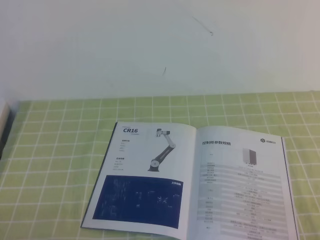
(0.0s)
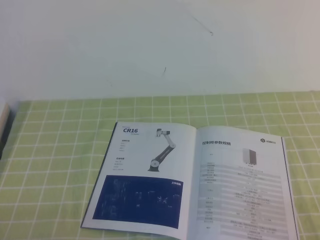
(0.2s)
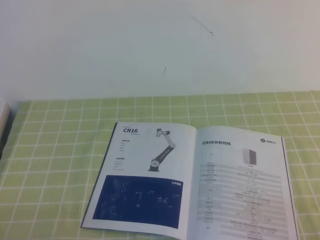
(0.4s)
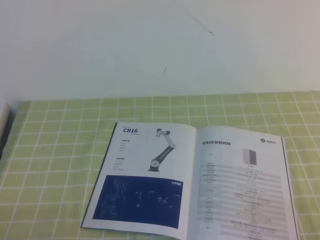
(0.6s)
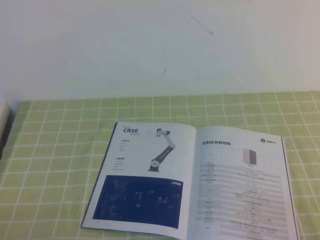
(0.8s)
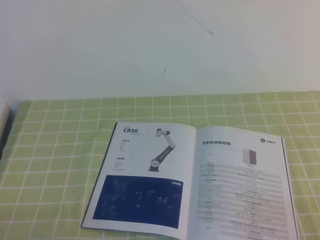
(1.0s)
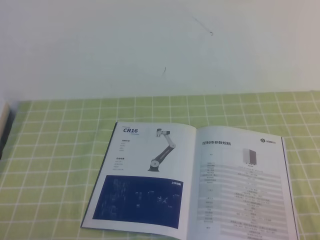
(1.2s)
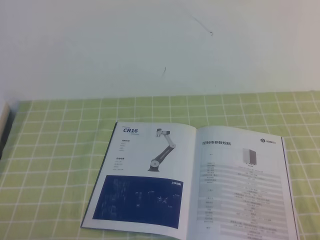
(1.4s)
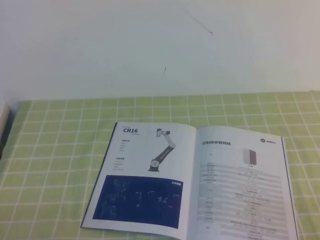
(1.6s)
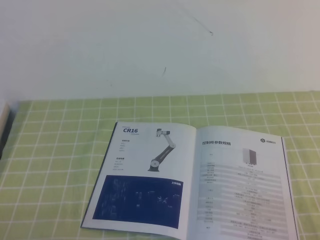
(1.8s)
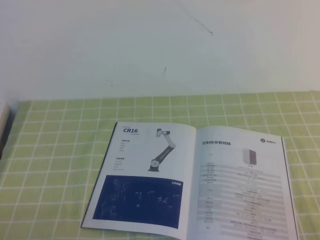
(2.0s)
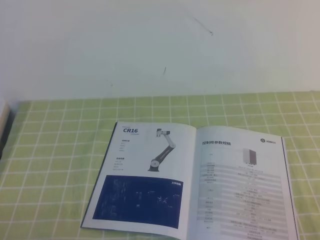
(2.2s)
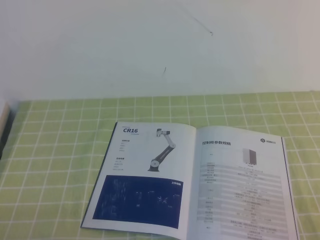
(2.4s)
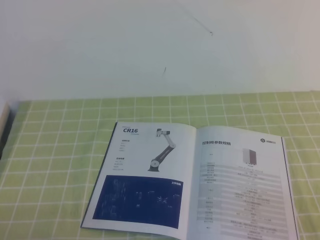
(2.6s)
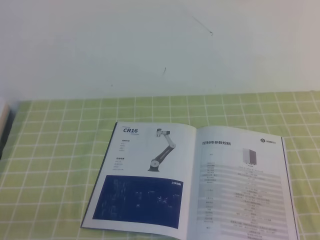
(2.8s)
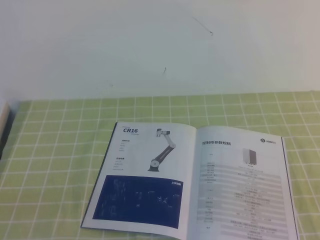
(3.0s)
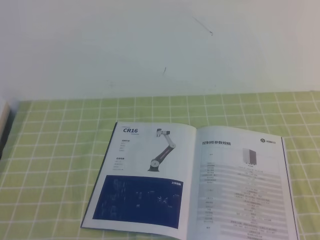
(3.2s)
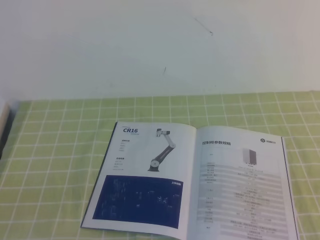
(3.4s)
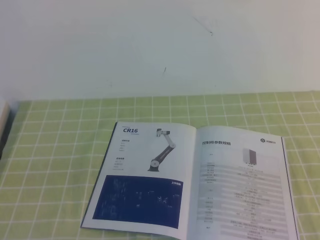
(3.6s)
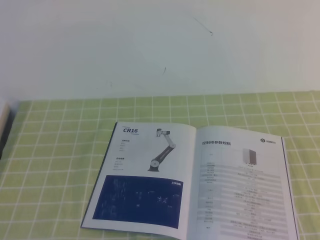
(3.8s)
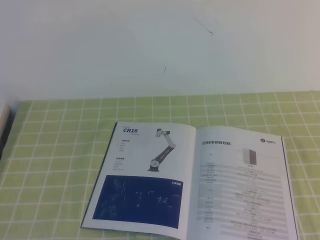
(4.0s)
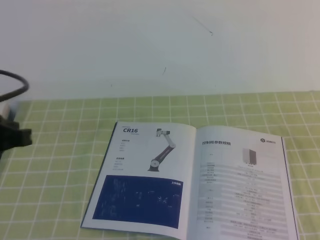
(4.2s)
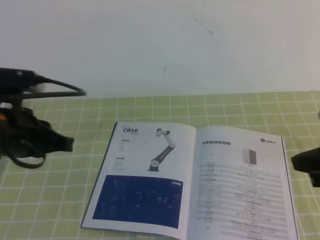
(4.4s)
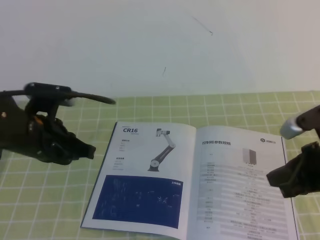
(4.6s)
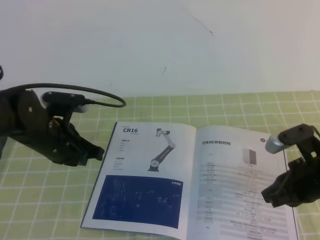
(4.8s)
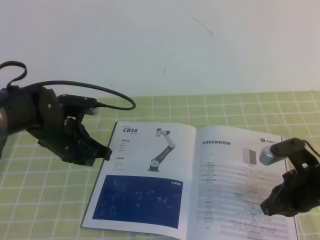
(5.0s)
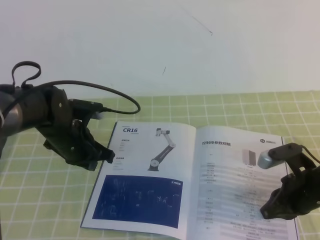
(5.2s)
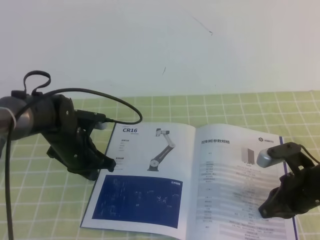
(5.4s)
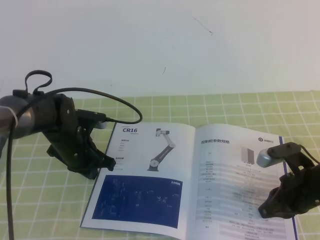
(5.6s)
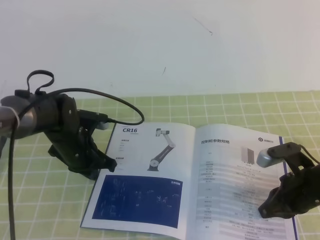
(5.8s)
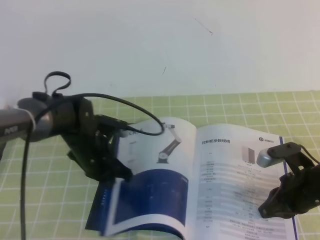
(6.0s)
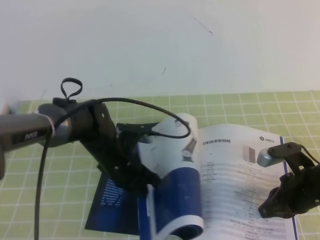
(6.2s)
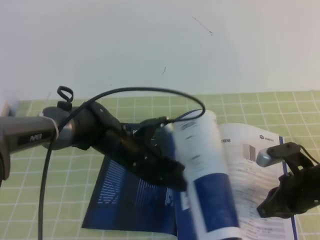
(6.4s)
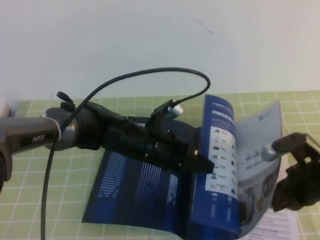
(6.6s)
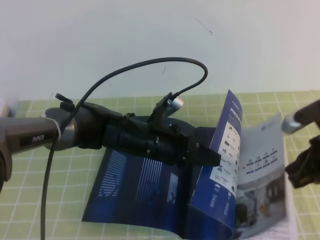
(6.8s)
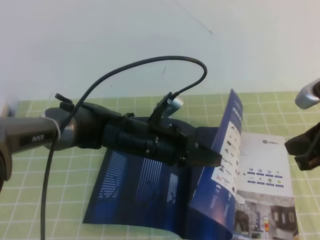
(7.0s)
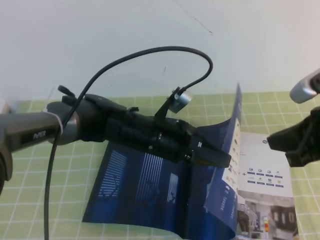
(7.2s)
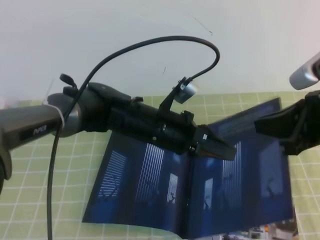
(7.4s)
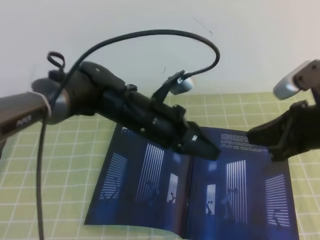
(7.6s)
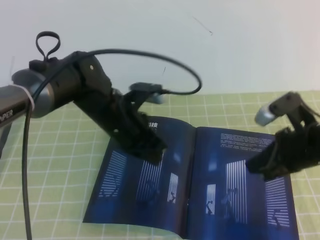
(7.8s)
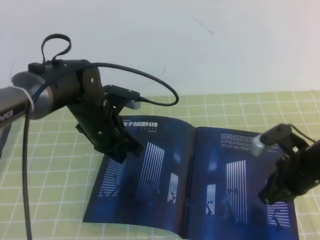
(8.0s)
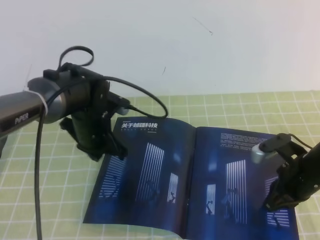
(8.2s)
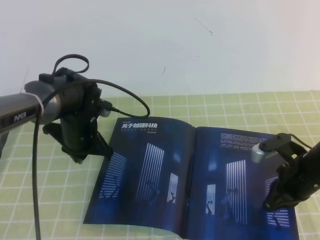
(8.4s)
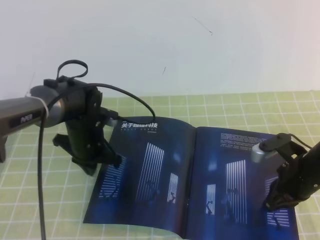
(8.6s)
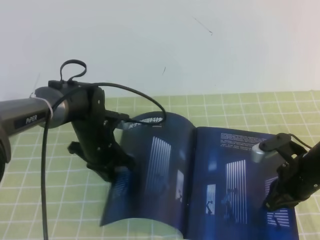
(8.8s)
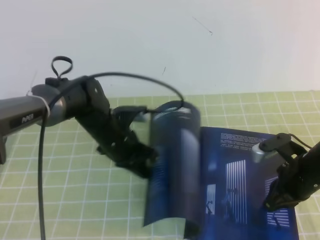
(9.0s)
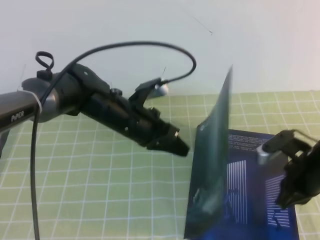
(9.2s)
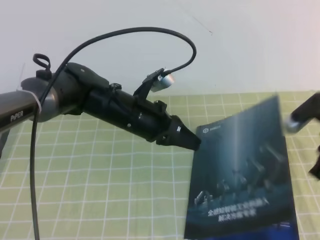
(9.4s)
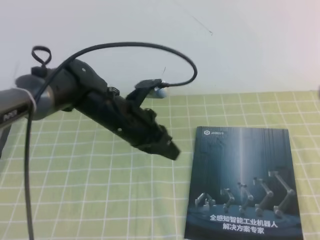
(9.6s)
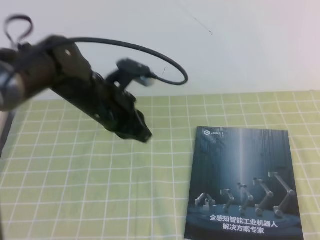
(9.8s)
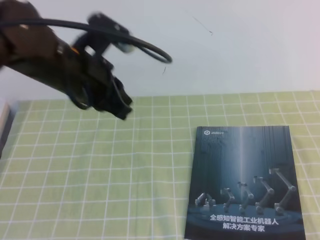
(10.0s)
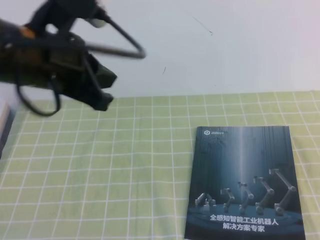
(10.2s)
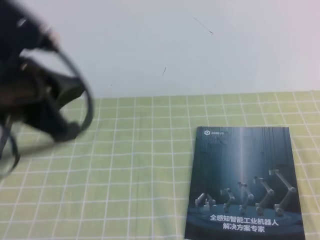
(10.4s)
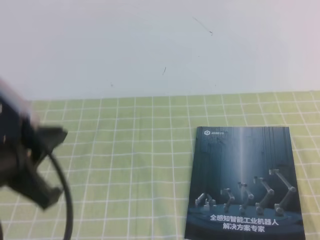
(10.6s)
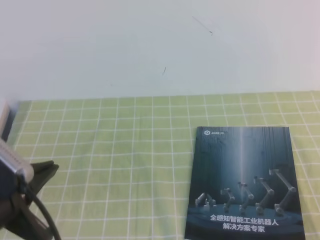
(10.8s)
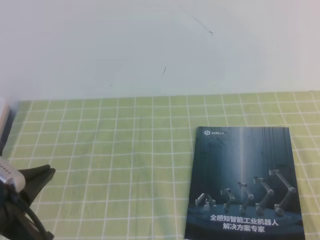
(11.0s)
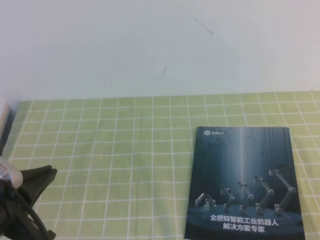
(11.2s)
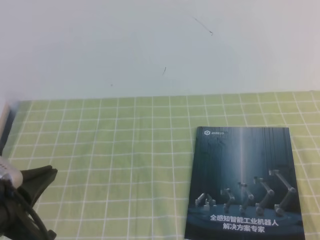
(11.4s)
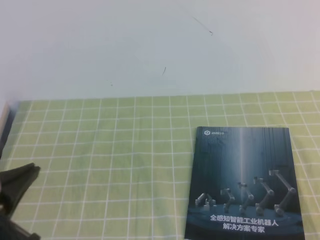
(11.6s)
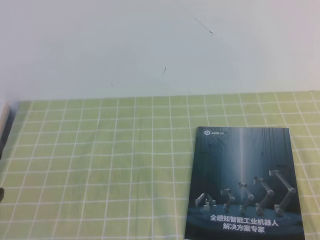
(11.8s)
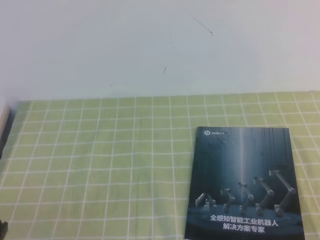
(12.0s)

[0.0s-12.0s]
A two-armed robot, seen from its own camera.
Task of the whole recording: on the green tablecloth, hold the book with one hand and close it with the other.
0.0s to 1.6s: Both grippers stay put.
3.0s to 4.4s: The grippers both shift forward by approximately 20 cm.
4.4s to 6.0s: The left gripper moves downward, forward and to the right, approximately 20 cm; the right gripper shifts about 15 cm downward.
6.0s to 7.6s: The left gripper shifts some 15 cm to the right and upward; the right gripper goes some 15 cm upward.
7.6s to 9.0s: The left gripper is displaced to the left and downward by approximately 10 cm. Meanwhile the right gripper moves downward, about 15 cm.
9.0s to 10.4s: The left gripper is displaced upward and backward by about 25 cm, while the right gripper moves backward and upward, roughly 25 cm.
10.4s to 12.0s: The right gripper changes place by roughly 5 cm, while the left gripper shifts roughly 25 cm downward, backward and to the left.

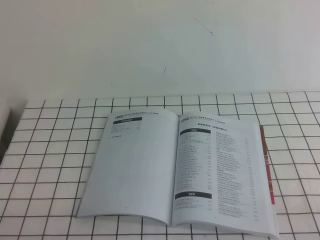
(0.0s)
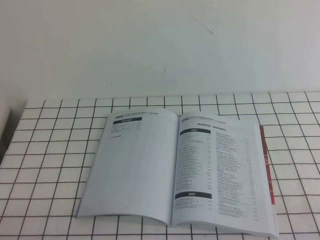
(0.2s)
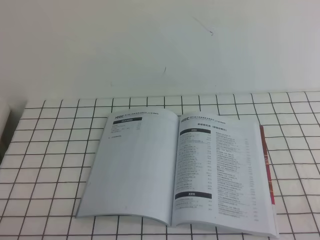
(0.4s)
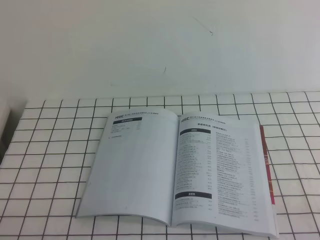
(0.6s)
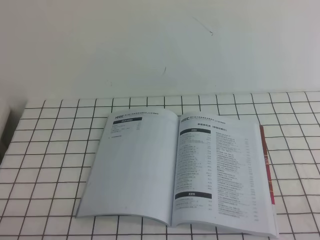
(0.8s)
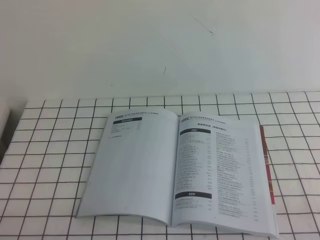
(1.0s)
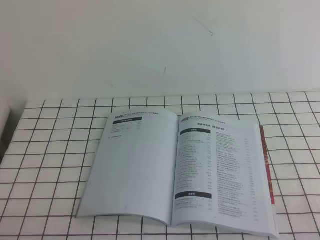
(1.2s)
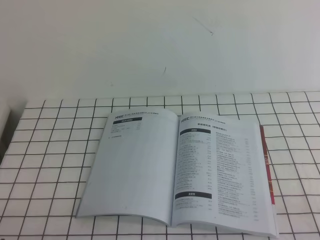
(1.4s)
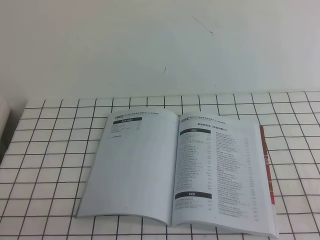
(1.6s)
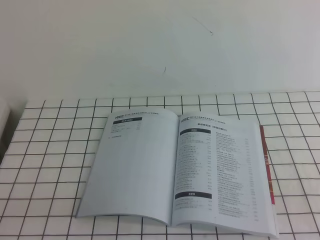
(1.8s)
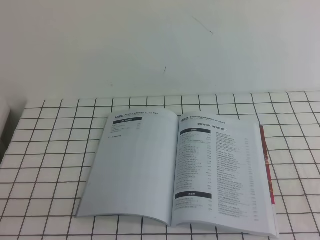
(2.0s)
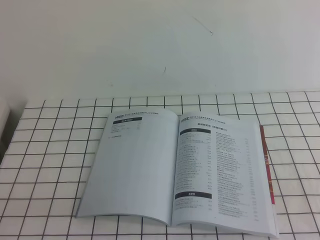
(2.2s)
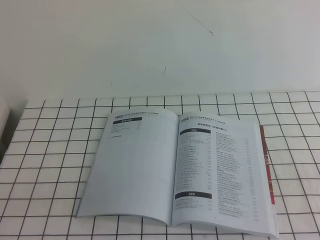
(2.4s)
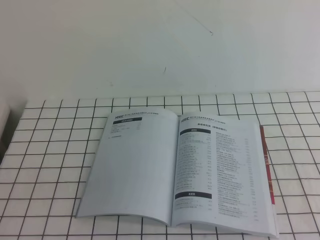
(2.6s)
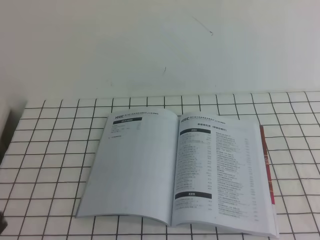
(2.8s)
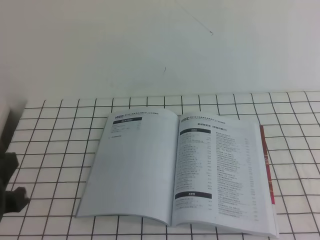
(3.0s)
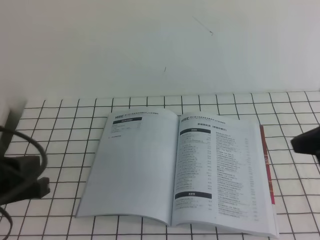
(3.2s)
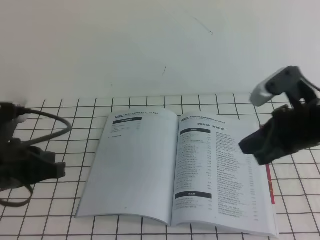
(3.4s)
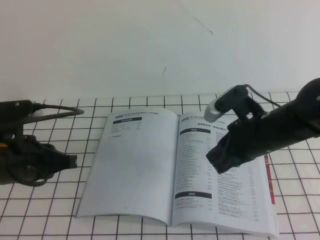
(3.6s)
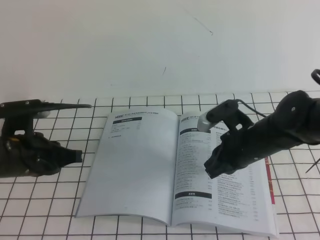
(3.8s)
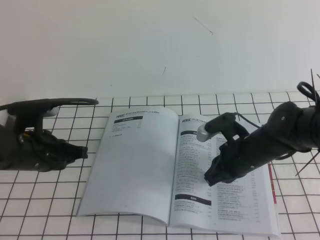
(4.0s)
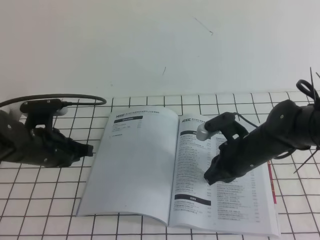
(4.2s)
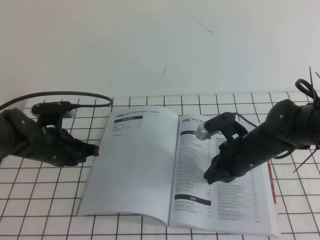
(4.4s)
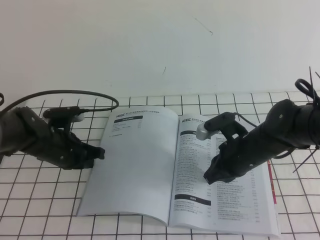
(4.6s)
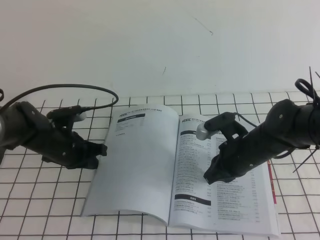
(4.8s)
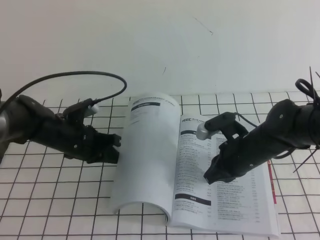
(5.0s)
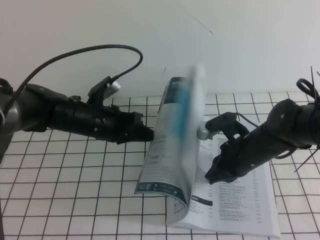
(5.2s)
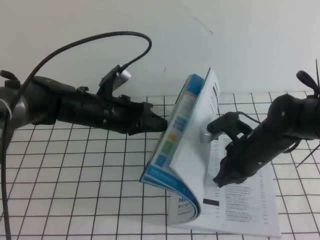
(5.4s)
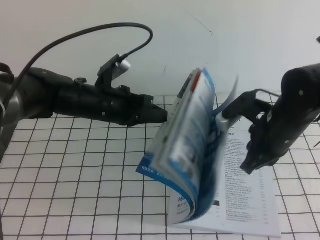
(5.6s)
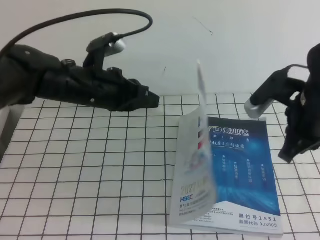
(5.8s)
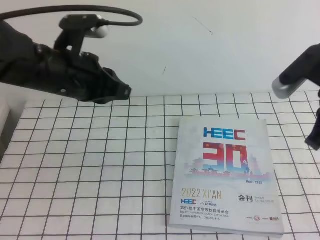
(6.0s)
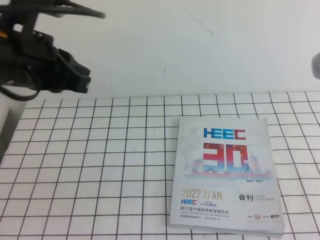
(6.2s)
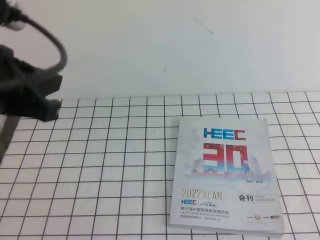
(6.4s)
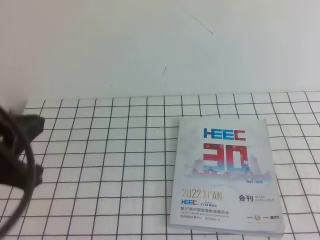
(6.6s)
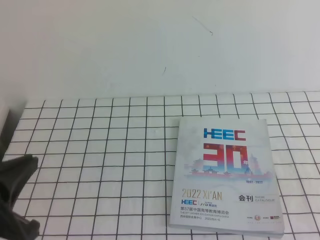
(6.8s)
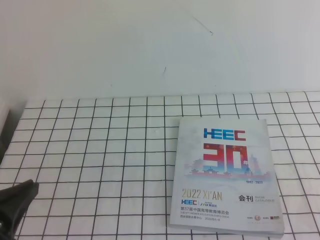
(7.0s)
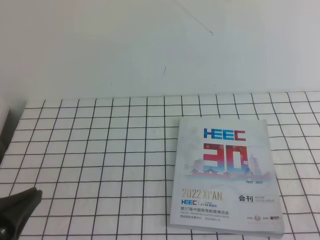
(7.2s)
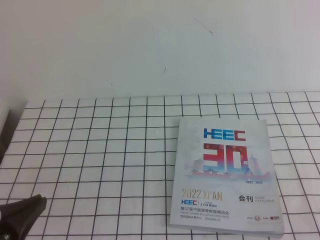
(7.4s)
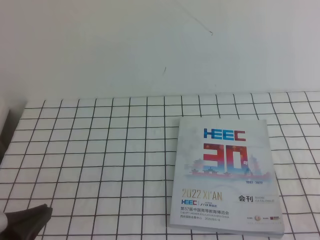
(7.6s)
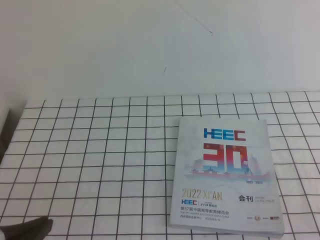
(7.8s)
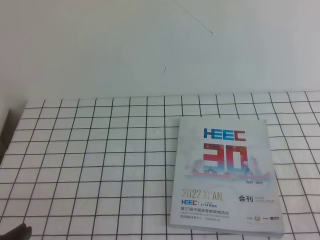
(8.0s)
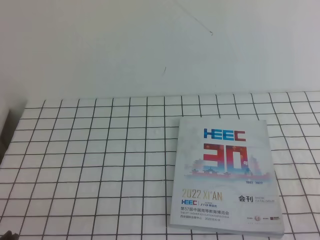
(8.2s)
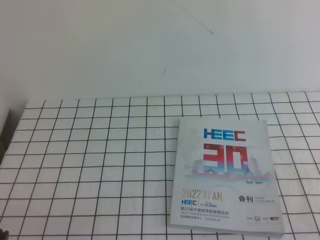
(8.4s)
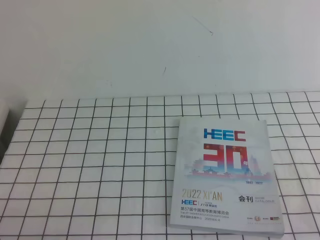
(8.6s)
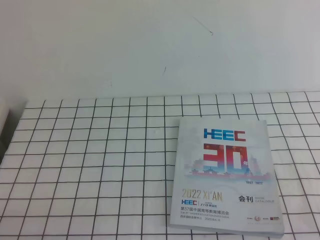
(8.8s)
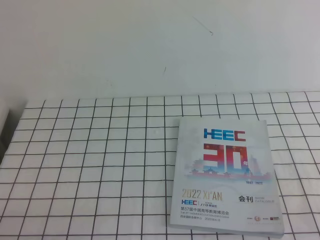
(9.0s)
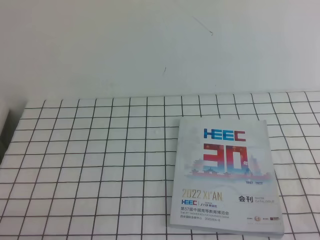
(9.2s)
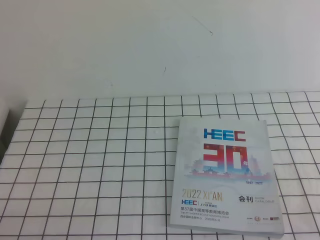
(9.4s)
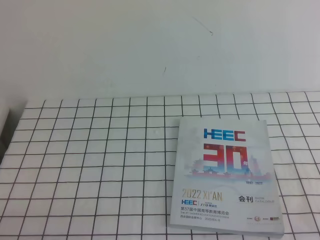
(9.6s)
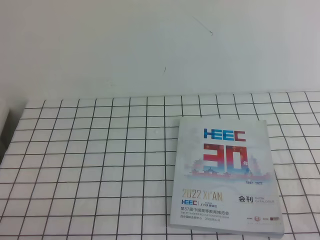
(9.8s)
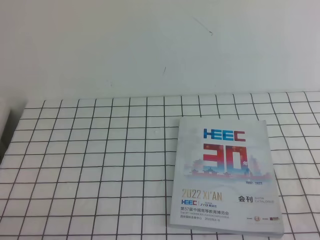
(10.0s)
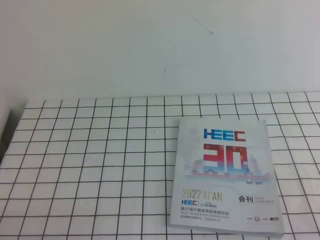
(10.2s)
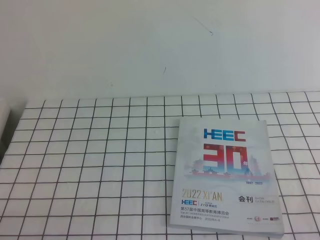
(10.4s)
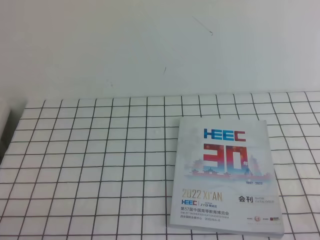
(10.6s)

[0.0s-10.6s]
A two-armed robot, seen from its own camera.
Task of the whole recording: on the white tablecloth, hold the book with one hand and close it with the other.
1.6s to 3.0s: The left gripper is displaced upward and forward by roughly 10 cm.
3.0s to 4.6s: The right gripper is displaced downward, forward and to the left by some 30 cm. The left gripper shifts about 30 cm forward and downward.
4.6s to 6.0s: The left gripper shifts about 15 cm upward. The right gripper is displaced upward and to the right by roughly 20 cm.
6.0s to 7.6s: Both grippers travel together backward, about 25 cm.
7.6s to 9.0s: The left gripper goes roughly 10 cm downward.
